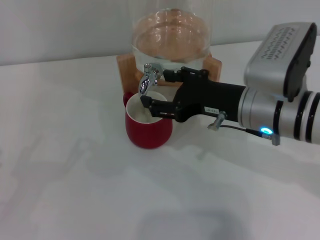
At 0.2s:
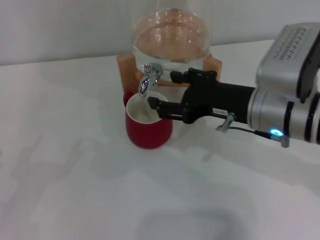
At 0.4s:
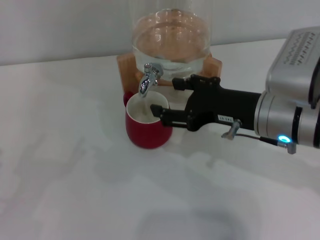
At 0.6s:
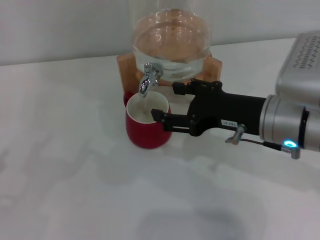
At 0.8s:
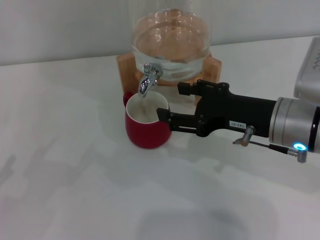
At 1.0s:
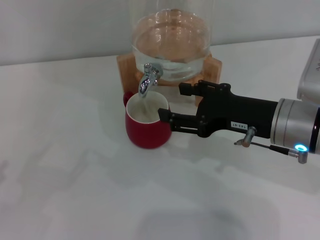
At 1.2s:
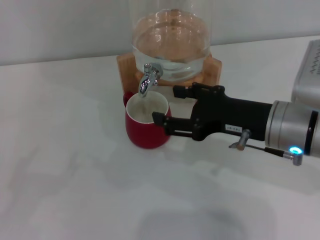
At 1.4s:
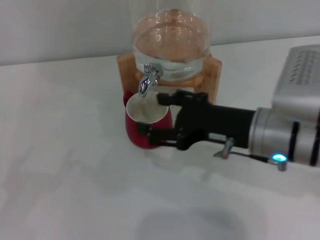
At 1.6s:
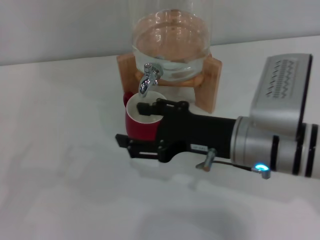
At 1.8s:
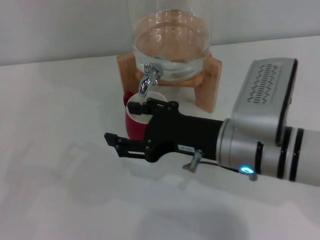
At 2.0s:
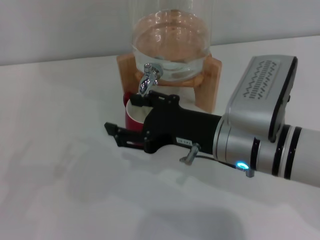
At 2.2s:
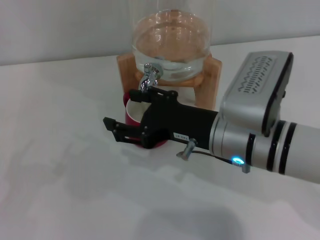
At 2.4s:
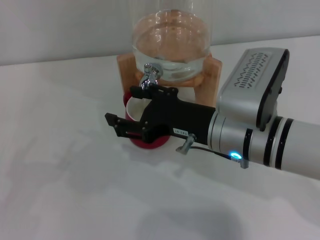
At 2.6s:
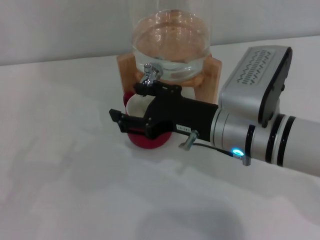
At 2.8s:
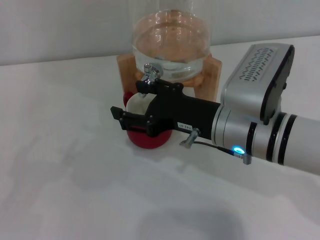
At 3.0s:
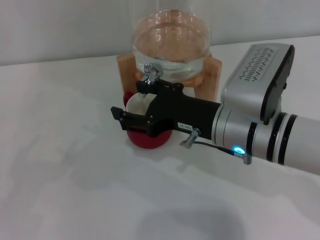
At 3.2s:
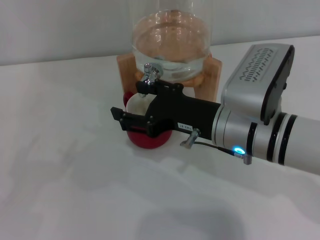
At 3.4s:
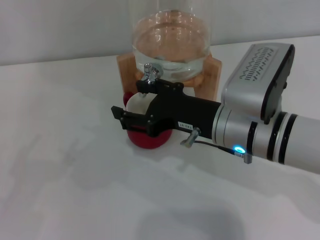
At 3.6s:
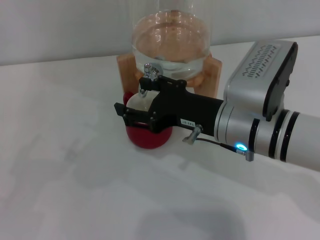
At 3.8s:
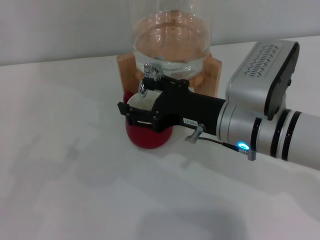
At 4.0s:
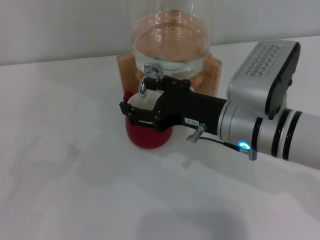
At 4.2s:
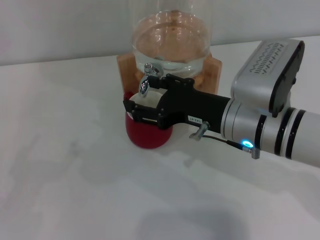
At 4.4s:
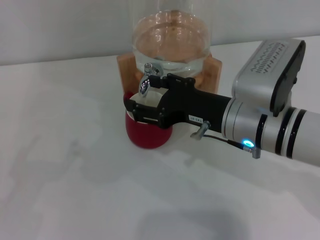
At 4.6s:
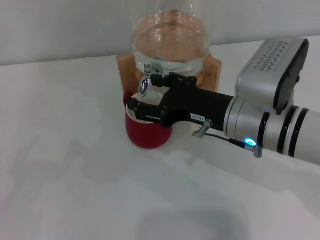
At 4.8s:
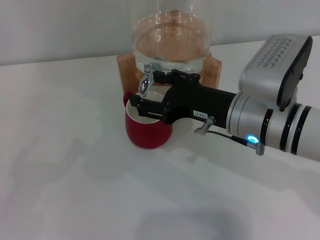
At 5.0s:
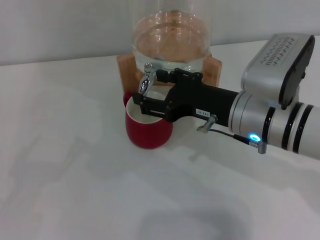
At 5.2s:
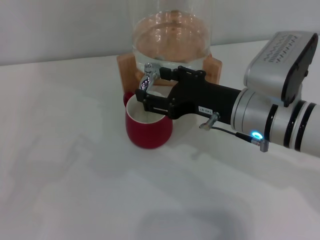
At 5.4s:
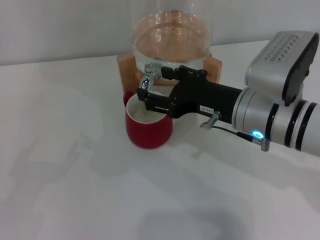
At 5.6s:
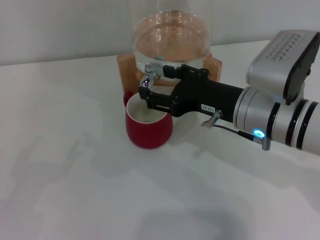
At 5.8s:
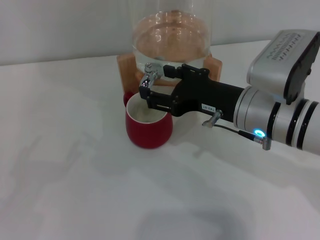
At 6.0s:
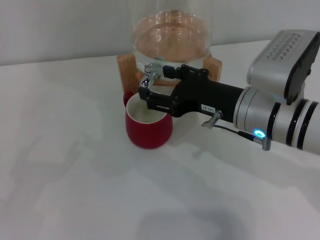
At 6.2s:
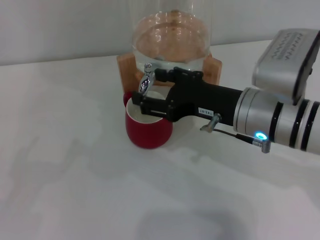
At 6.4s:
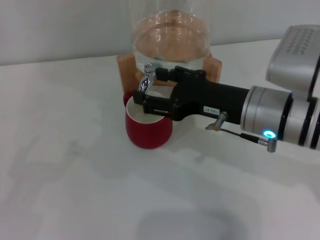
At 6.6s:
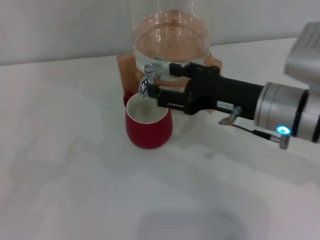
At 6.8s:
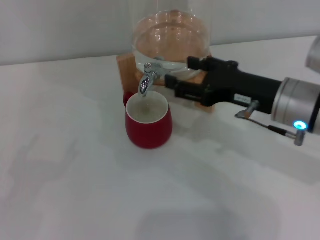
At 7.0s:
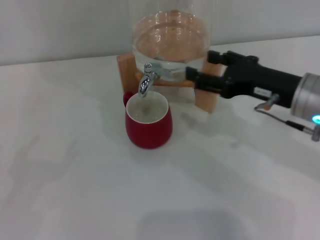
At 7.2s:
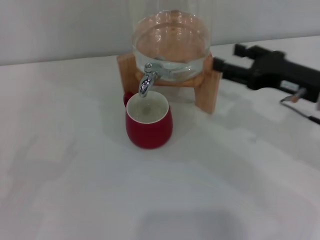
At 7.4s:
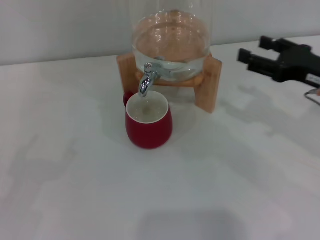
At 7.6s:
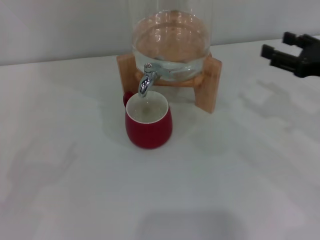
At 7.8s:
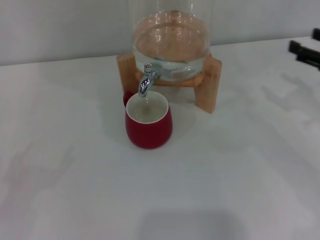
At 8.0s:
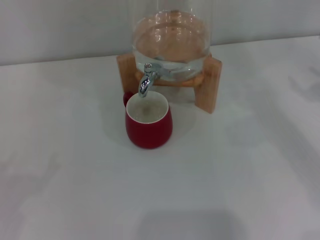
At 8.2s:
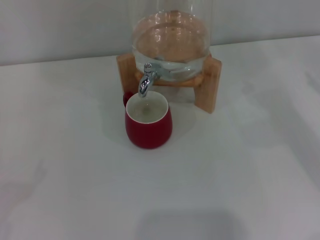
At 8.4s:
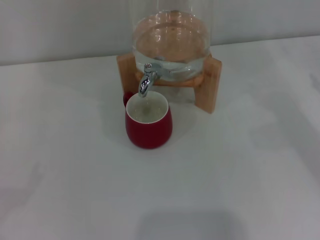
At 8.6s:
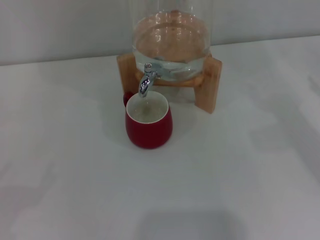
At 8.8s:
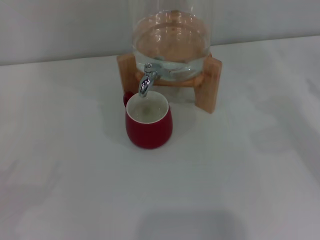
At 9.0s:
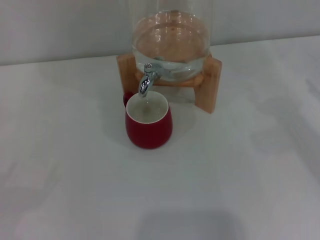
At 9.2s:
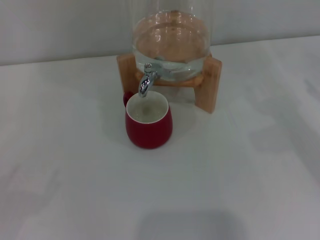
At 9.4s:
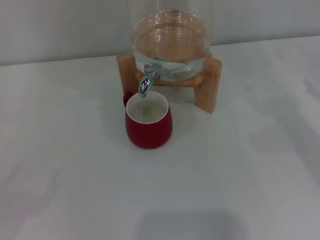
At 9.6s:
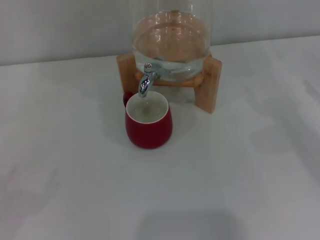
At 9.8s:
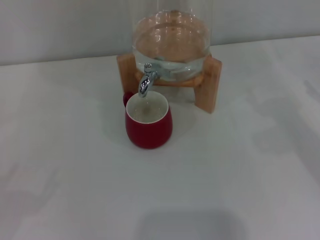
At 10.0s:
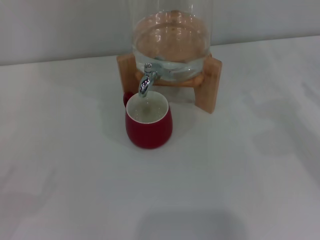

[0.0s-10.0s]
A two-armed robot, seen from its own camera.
Task of the whole recording: the left gripper pick up the red cup and place it horizontally under the faucet, the right gripper turn on the faucet to fill the cup, and then turn off the faucet.
Step, 0.2s to 6.2s: Close the dispenser valve with the right gripper.
0.0s to 2.8s: There are only small adjustments of the grippers.
2.8s to 4.2s: Both grippers stay put.
4.2s to 5.8s: There are only small adjustments of the grippers.
5.8s to 7.2s: The right gripper goes about 10 cm to the right.
7.2s to 8.6s: The right gripper is displaced to the right by approximately 15 cm.
